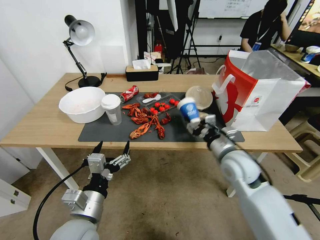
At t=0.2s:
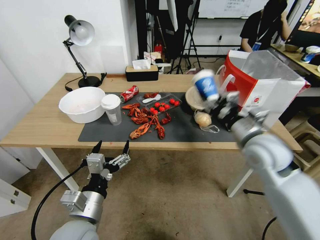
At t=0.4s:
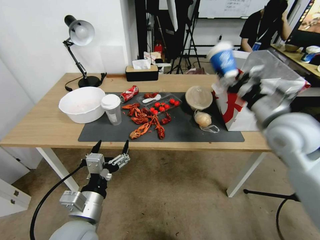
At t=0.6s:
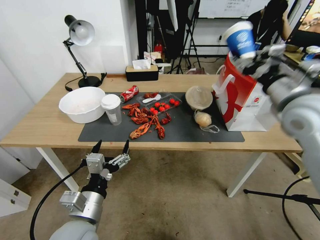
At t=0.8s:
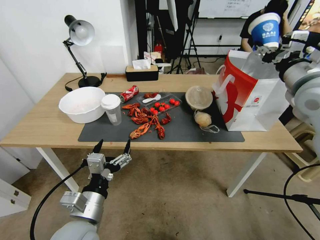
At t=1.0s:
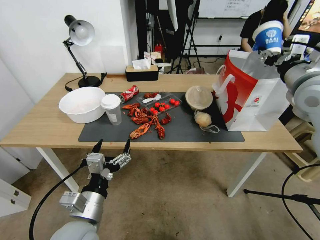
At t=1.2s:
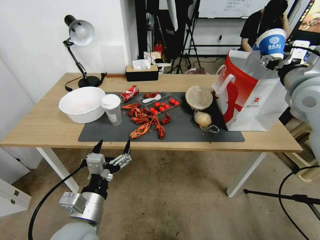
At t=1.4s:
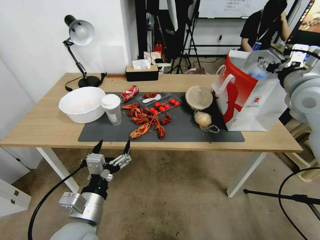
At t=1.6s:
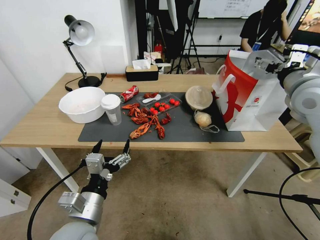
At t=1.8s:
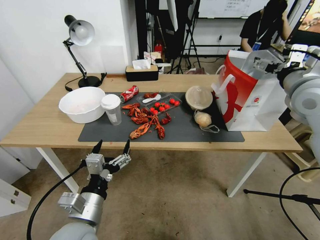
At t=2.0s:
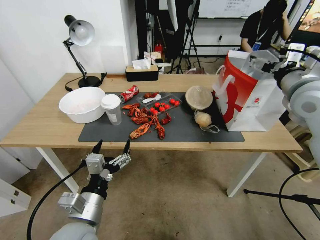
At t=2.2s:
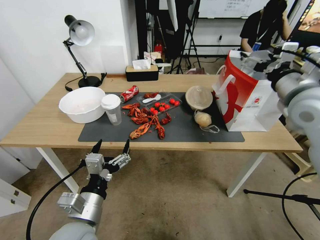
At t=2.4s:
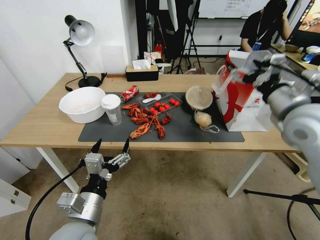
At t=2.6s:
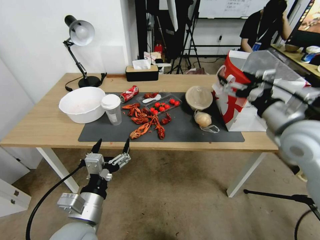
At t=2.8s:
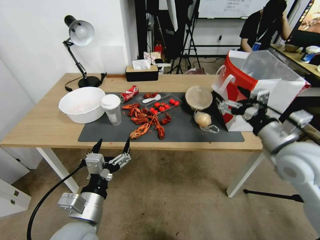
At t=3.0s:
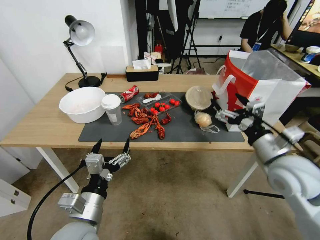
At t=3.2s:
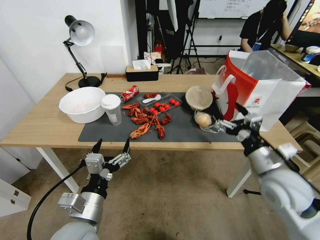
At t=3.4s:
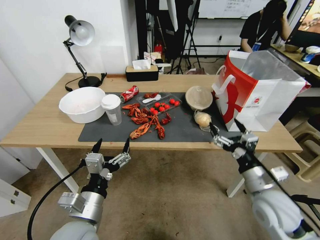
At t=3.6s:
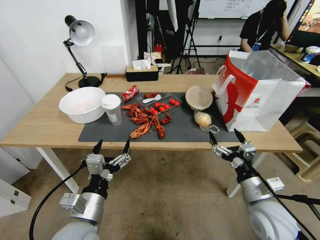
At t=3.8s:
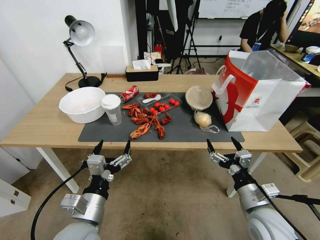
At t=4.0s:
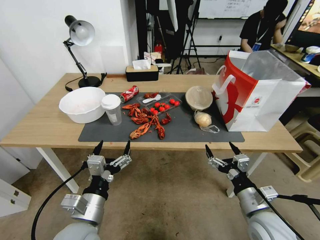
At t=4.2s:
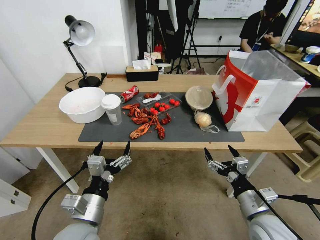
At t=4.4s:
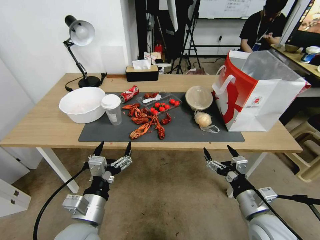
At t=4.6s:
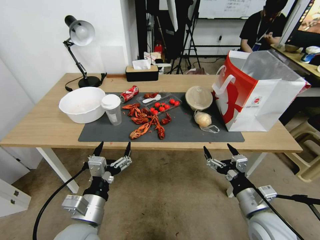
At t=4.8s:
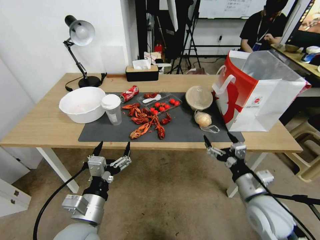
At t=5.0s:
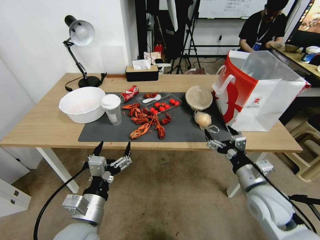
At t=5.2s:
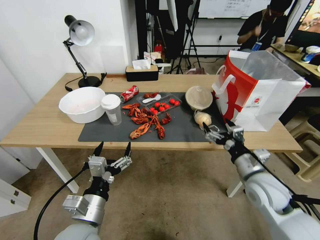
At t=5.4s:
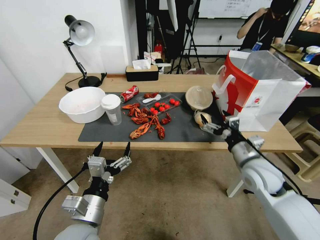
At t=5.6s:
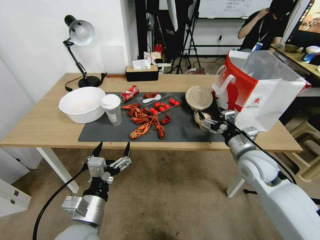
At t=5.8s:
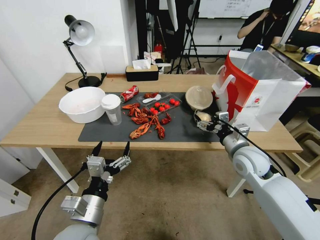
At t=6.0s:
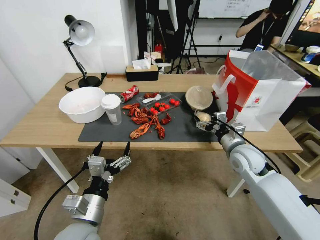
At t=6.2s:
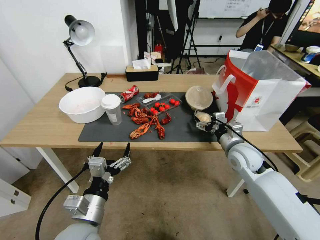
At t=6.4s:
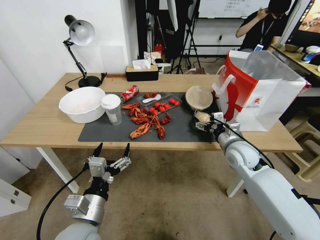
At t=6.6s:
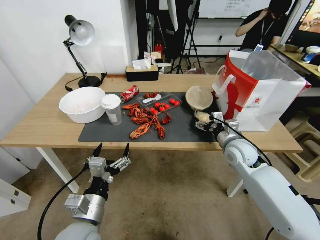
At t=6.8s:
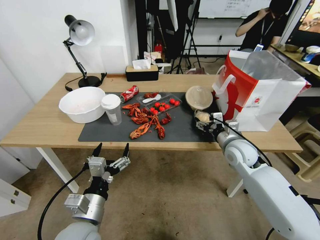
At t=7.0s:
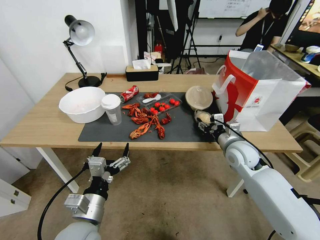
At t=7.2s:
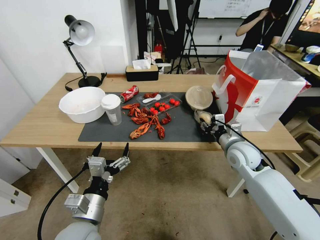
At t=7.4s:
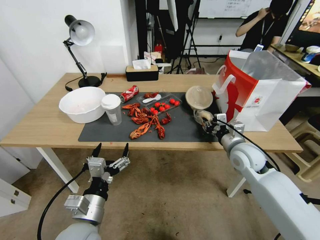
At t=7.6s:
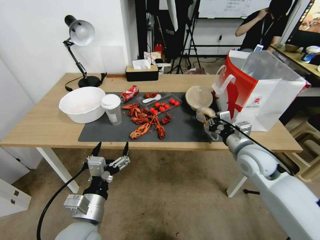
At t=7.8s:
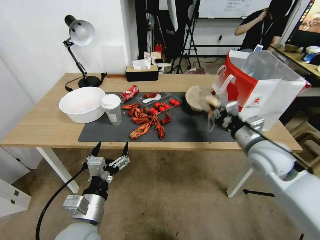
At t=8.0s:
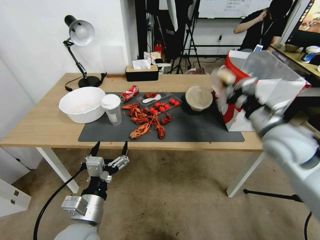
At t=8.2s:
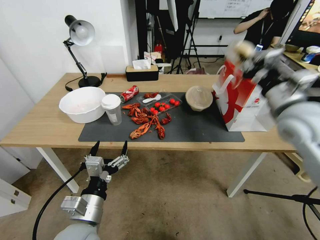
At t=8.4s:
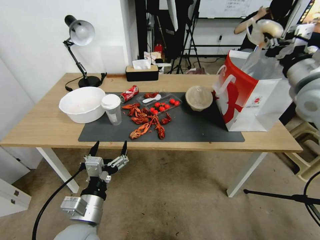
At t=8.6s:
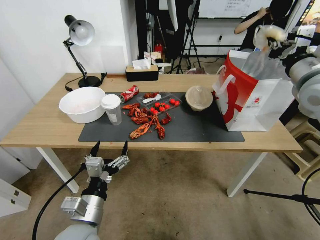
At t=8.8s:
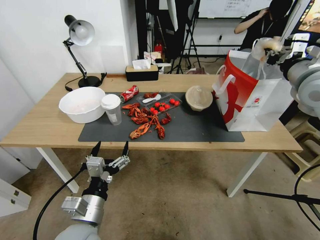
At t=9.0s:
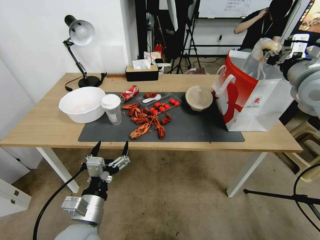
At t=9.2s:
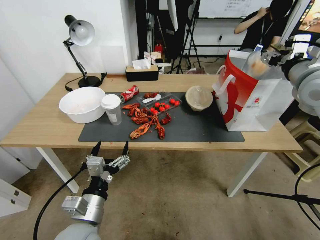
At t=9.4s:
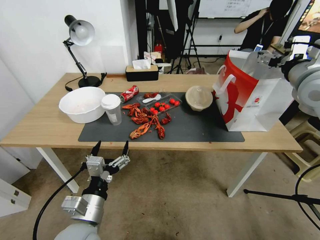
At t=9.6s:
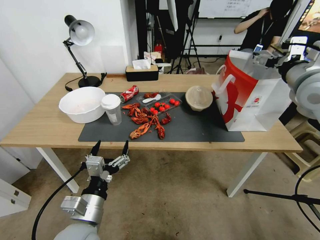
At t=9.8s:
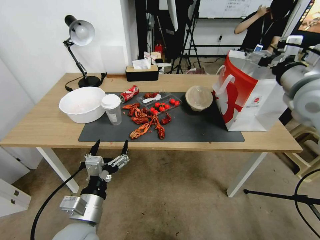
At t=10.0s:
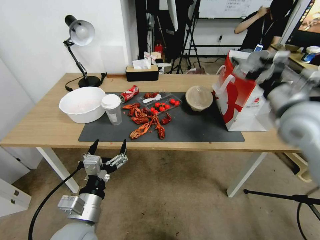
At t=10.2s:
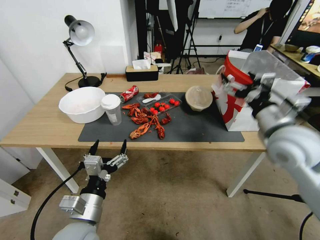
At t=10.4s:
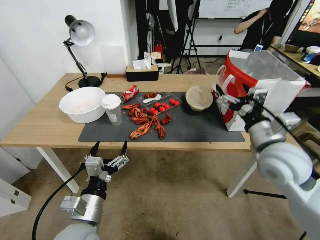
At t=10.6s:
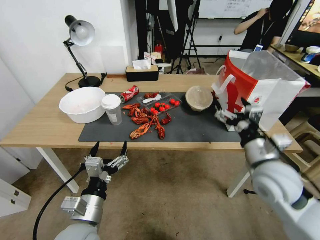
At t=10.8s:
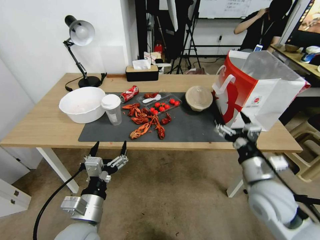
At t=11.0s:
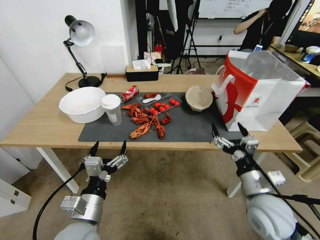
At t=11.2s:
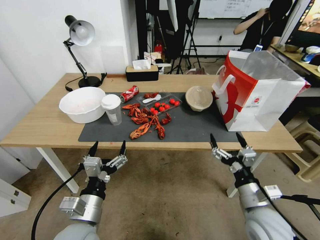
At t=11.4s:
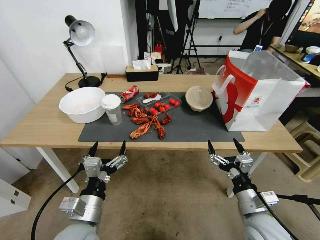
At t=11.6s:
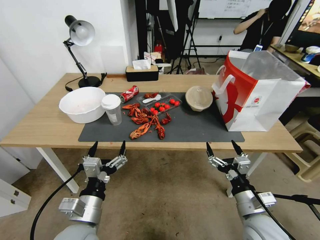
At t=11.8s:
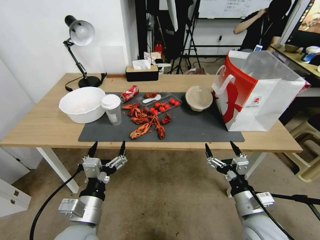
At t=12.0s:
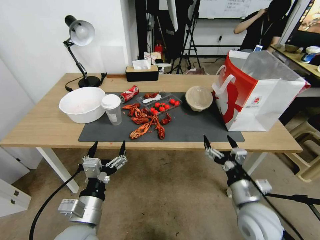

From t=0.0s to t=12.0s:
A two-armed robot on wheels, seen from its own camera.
From t=0.0s to t=1.6s: The right gripper shifts approximately 20 cm upward and to the right, and opens up.
From t=1.6s to t=3.0s: The right gripper goes about 20 cm downward and backward.
From t=3.0s to t=4.4s: The right gripper is displaced downward and backward by roughly 15 cm.
From t=4.4s to t=6.0s: The right gripper shifts approximately 20 cm forward.
From t=6.0s to t=7.6s: The right gripper closes its fingers.
From t=7.6s to t=9.0s: The right gripper moves upward and to the right, roughly 25 cm.
From t=9.0s to t=10.4s: The right gripper shifts roughly 15 cm downward, backward and to the left, and opens.
From t=10.4s to t=12.0s: The right gripper is displaced downward and backward by approximately 25 cm.

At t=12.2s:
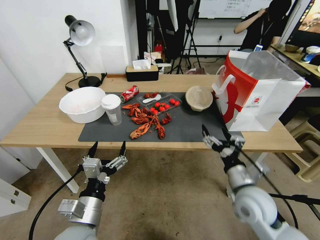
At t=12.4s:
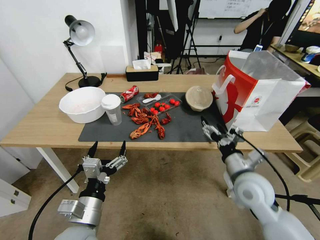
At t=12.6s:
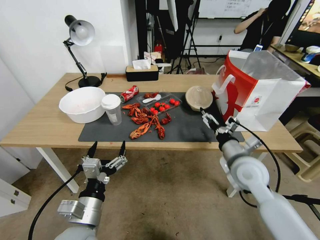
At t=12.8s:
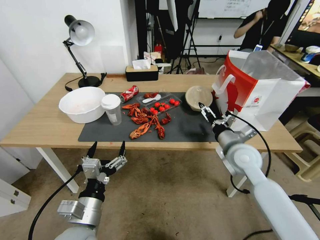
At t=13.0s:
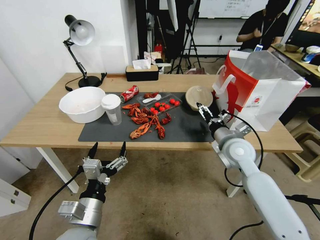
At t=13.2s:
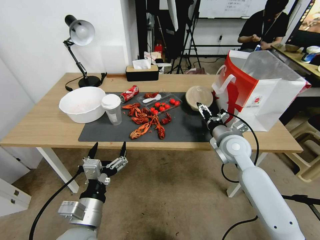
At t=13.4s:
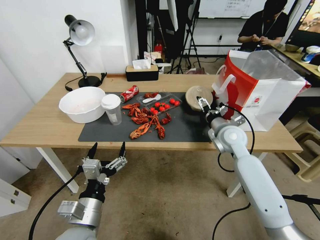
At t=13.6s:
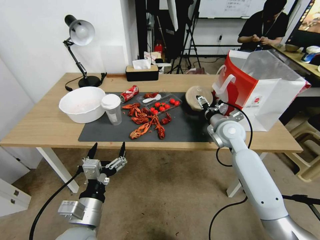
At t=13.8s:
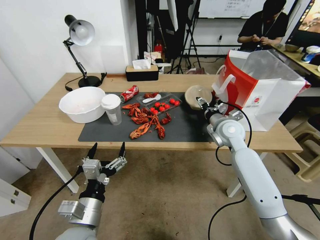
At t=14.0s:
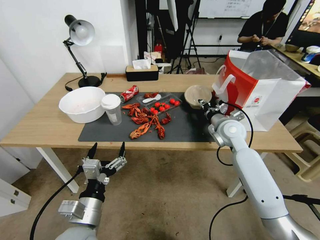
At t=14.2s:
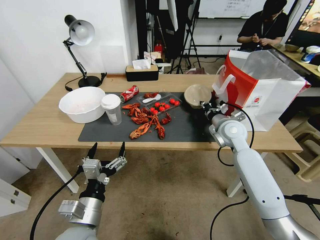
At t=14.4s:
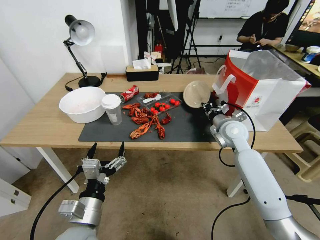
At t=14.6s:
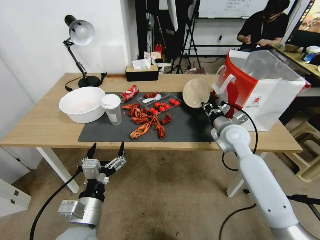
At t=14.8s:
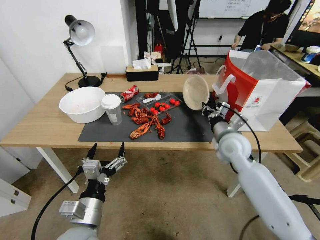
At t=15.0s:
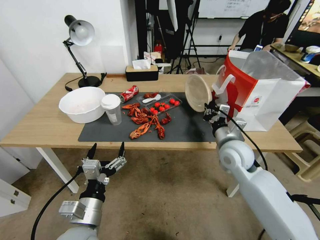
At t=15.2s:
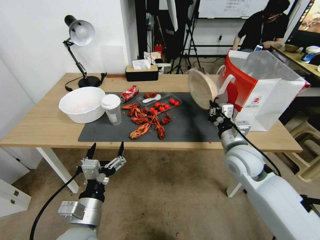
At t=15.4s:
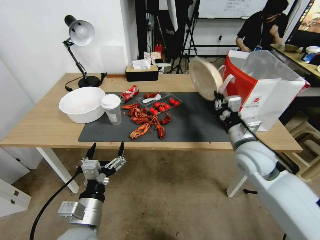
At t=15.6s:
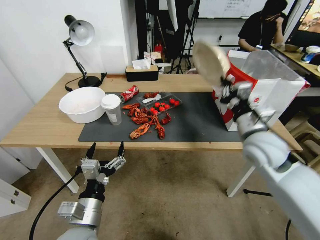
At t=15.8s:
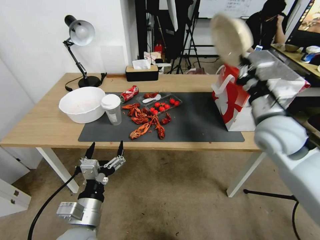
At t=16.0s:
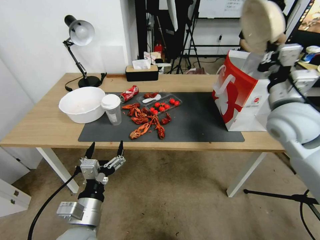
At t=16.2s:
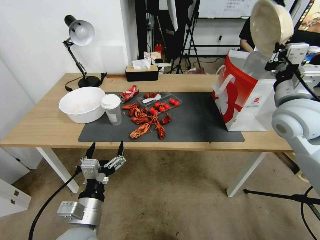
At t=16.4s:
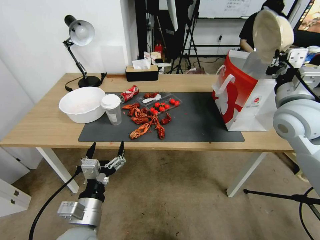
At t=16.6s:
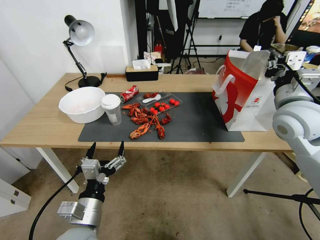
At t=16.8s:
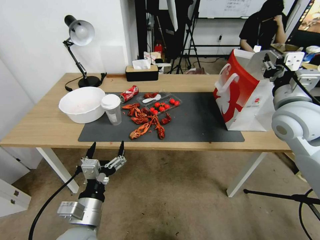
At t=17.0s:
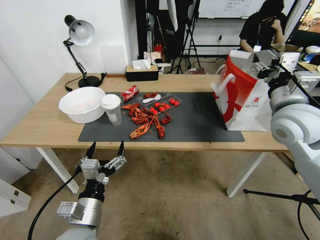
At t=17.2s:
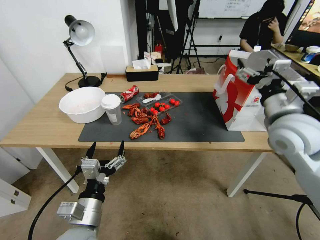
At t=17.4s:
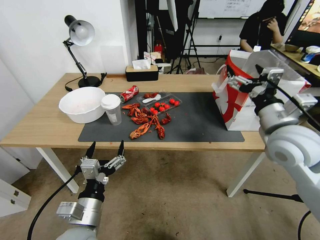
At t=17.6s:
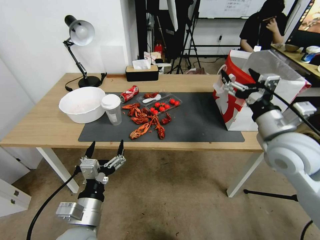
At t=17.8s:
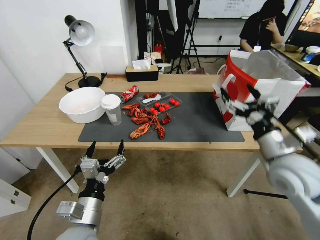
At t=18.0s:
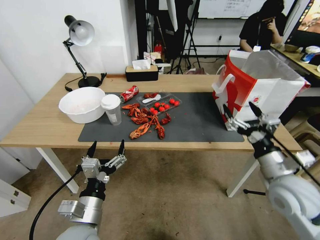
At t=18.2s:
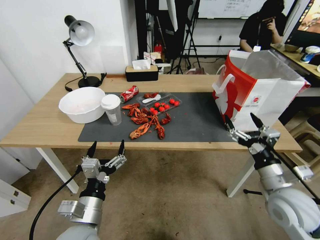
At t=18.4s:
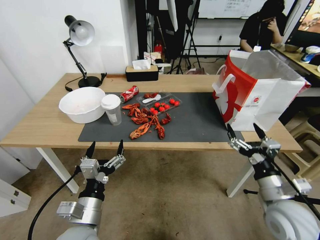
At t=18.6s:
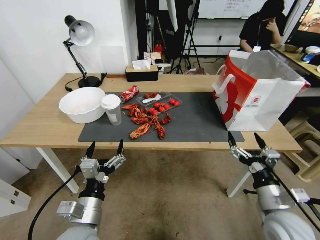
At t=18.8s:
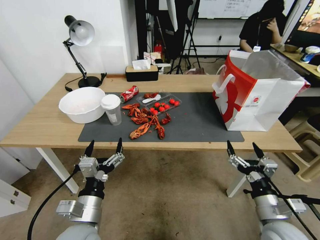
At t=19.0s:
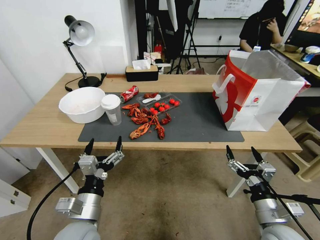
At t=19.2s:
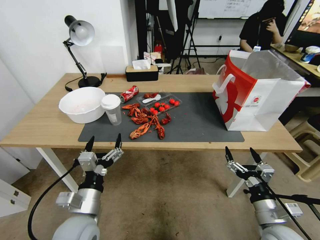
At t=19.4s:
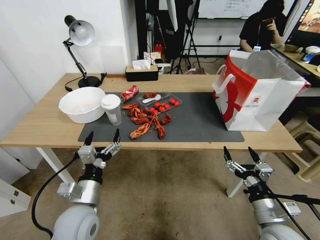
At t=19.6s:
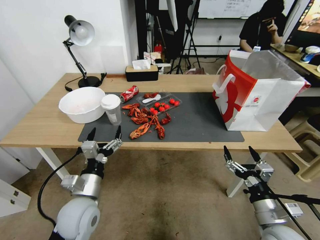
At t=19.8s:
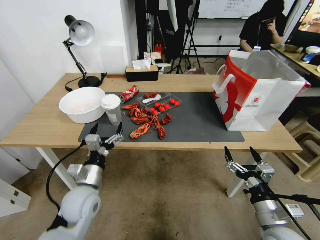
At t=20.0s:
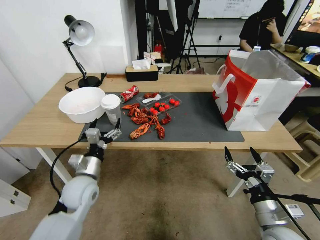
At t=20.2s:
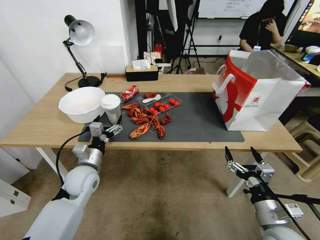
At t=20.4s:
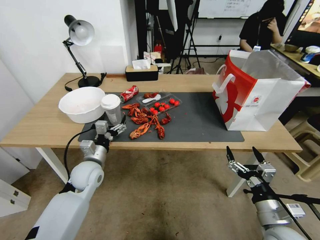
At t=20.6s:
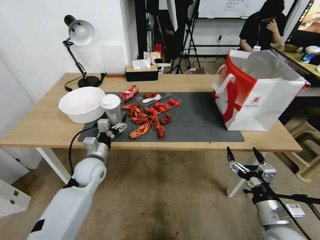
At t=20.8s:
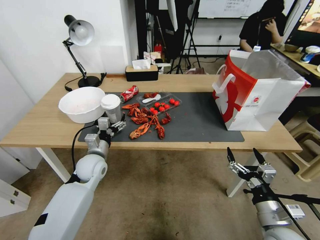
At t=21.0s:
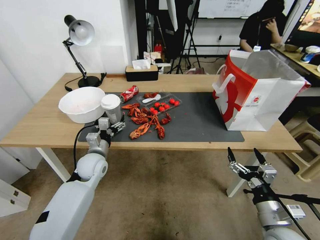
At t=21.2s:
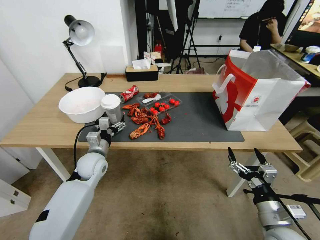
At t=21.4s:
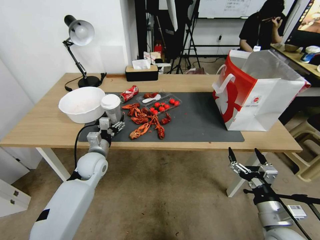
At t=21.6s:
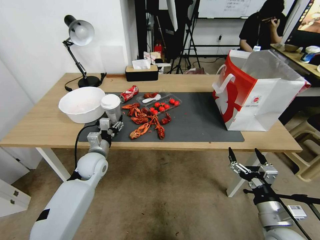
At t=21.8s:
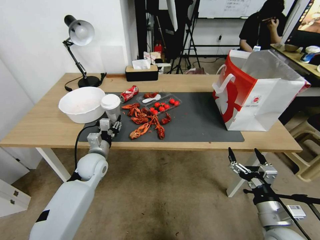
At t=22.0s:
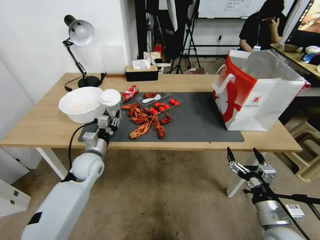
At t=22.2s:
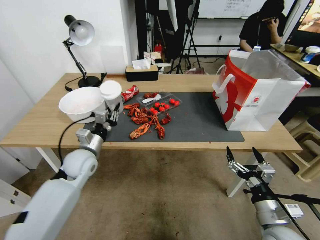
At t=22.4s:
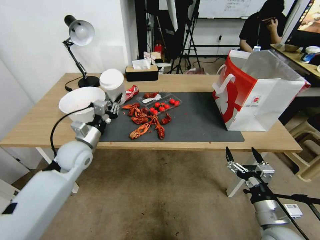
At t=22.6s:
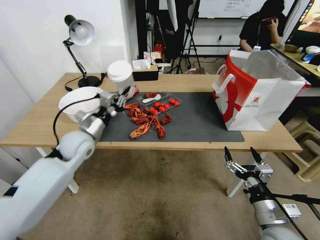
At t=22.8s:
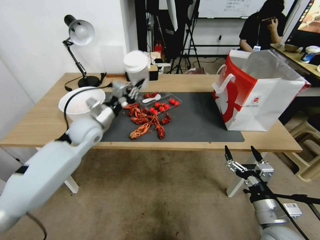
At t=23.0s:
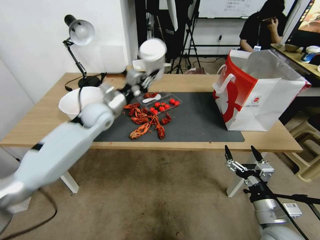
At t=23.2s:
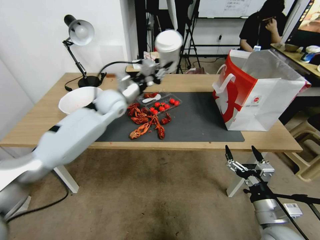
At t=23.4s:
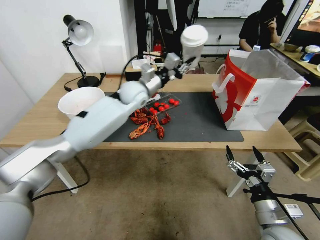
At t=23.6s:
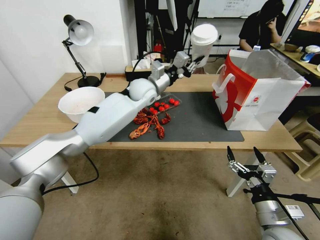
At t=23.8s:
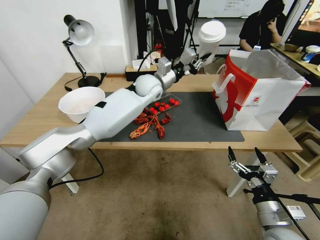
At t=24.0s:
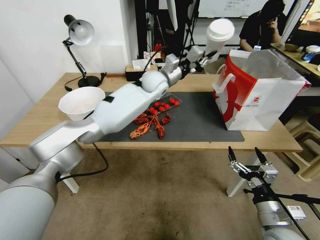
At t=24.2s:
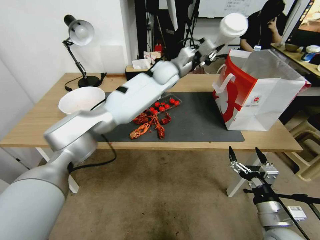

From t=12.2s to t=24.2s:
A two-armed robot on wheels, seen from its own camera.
From t=12.2s to t=13.8s: The right gripper heads forward, covering roughly 20 cm, and closes its fingers.
From t=13.8s to t=15.2s: The right gripper shifts approximately 10 cm backward, and closes.
From t=15.2s to t=16.6s: The right gripper moves upward and to the right, about 20 cm.
From t=16.6s to t=18.2s: The right gripper is displaced downward and backward by some 25 cm, and opens up.
From t=18.2s to t=19.8s: The right gripper is displaced downward and backward by about 10 cm; the left gripper is displaced forward by approximately 10 cm.
From t=19.8s to t=21.2s: The left gripper heads forward, covering roughly 15 cm.
From t=21.2s to t=22.6s: The left gripper shifts approximately 10 cm upward, and closes its fingers.
From t=22.6s to t=24.2s: The left gripper heads to the right, forward and upward, covering roughly 40 cm.